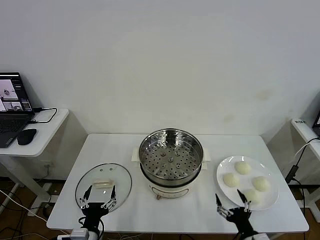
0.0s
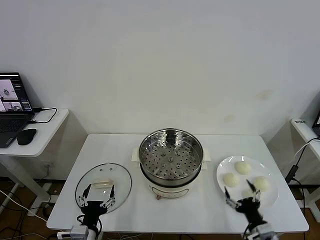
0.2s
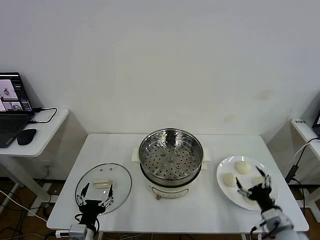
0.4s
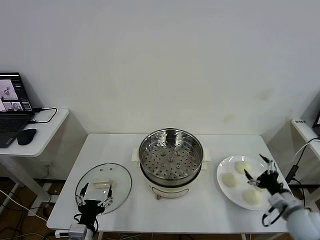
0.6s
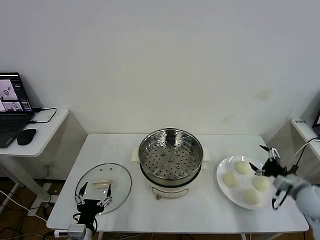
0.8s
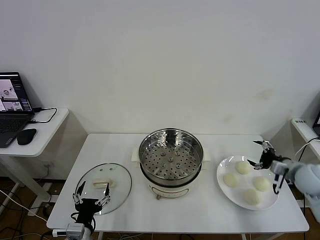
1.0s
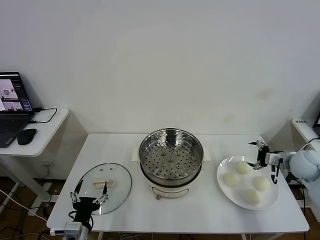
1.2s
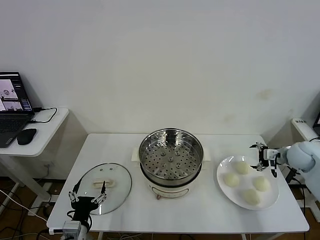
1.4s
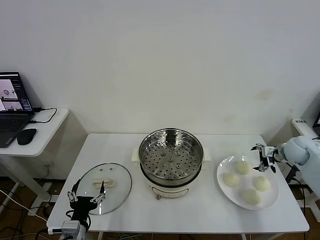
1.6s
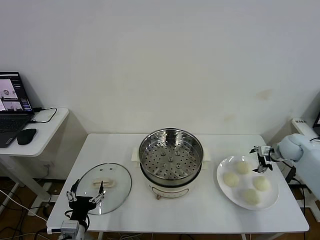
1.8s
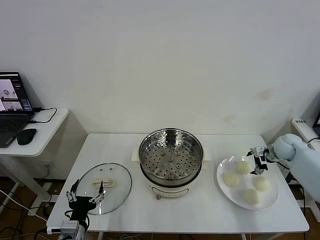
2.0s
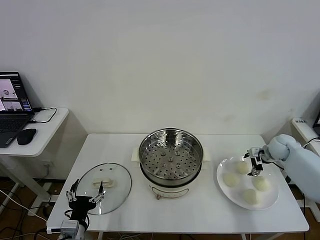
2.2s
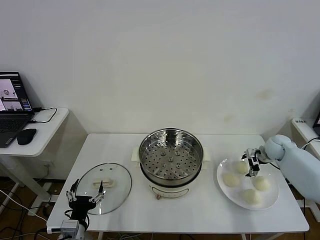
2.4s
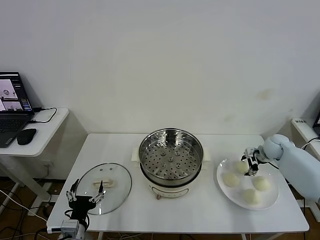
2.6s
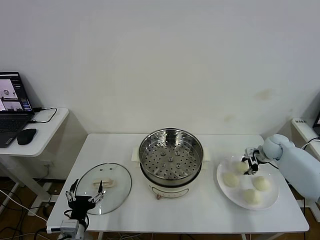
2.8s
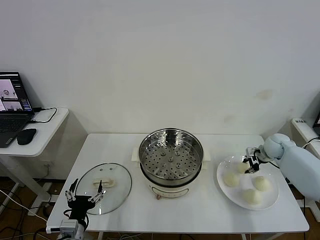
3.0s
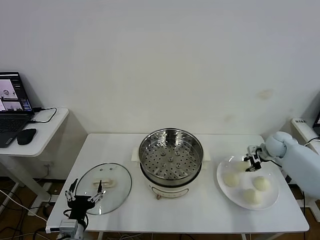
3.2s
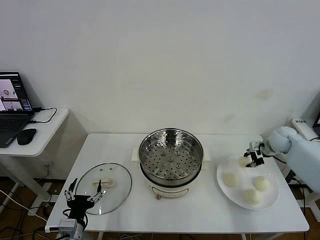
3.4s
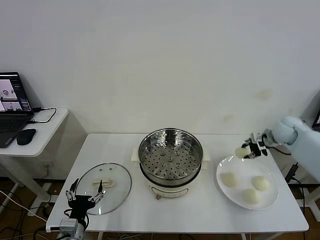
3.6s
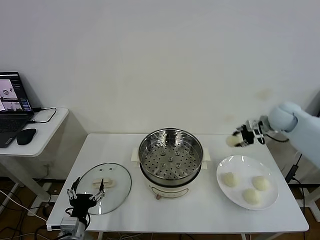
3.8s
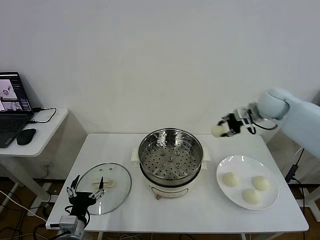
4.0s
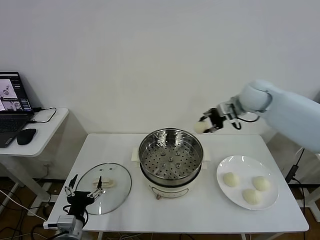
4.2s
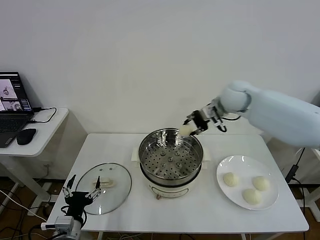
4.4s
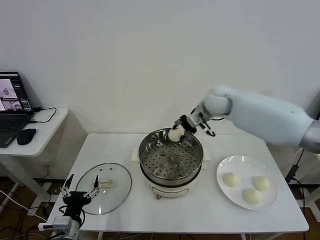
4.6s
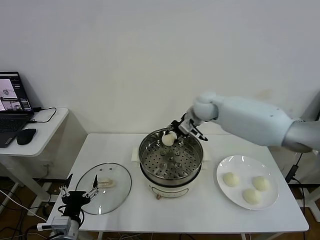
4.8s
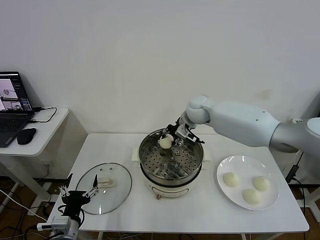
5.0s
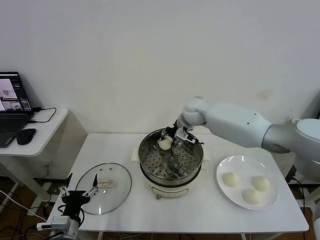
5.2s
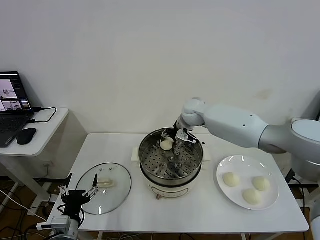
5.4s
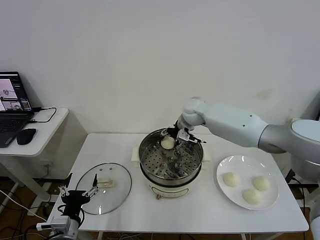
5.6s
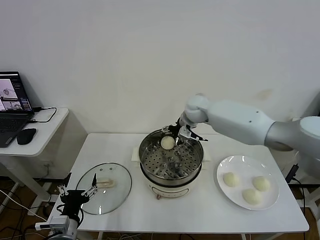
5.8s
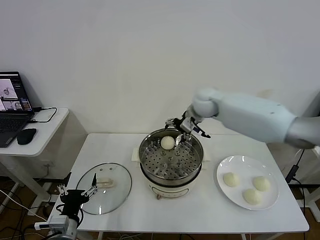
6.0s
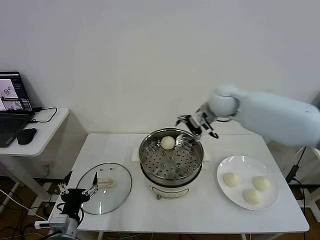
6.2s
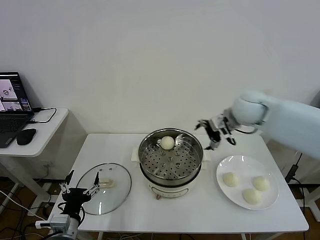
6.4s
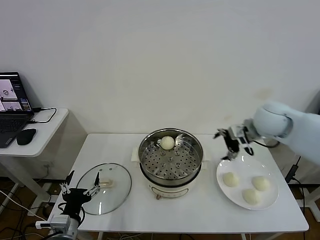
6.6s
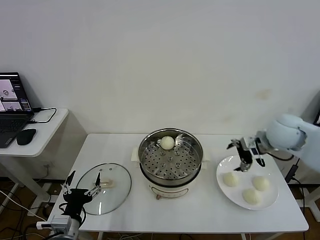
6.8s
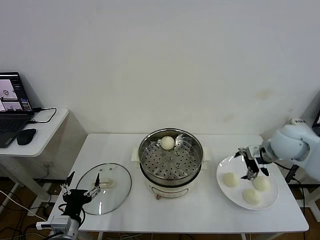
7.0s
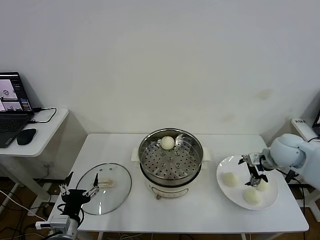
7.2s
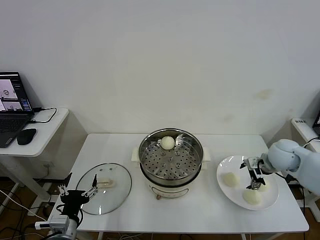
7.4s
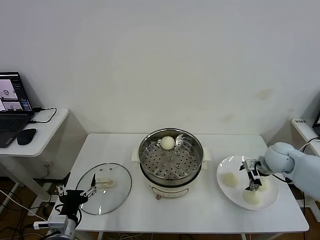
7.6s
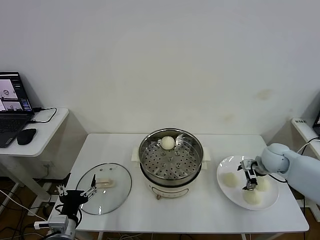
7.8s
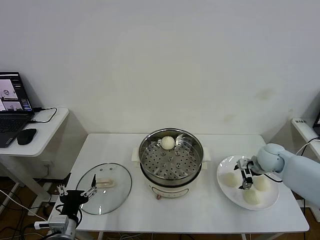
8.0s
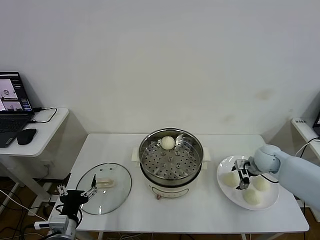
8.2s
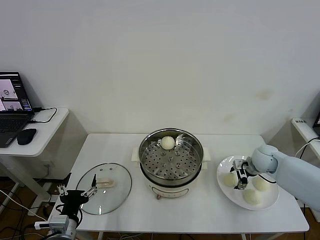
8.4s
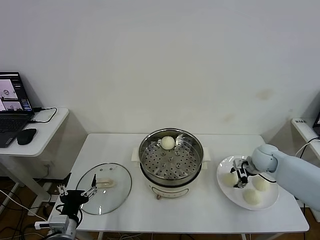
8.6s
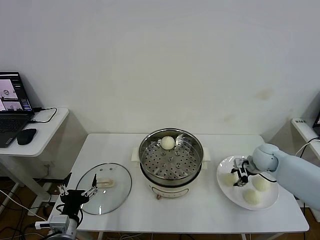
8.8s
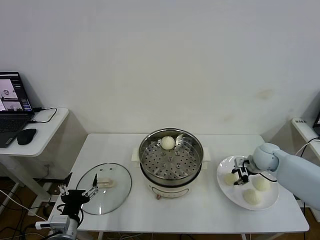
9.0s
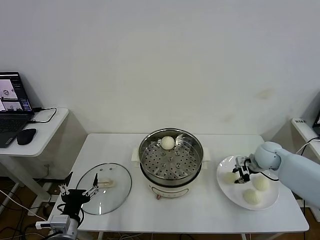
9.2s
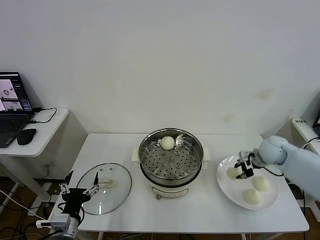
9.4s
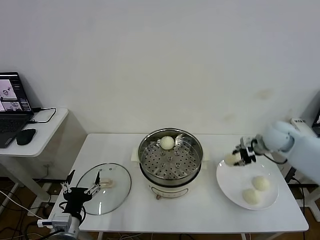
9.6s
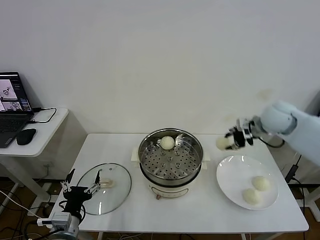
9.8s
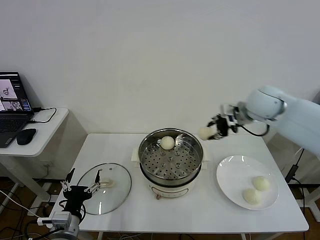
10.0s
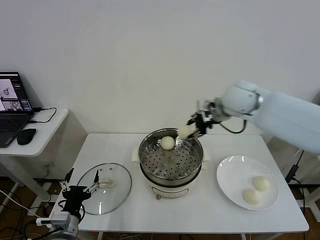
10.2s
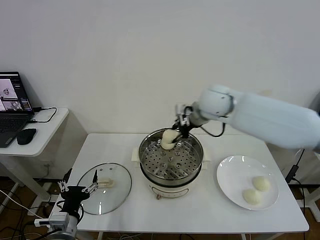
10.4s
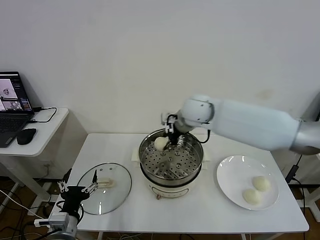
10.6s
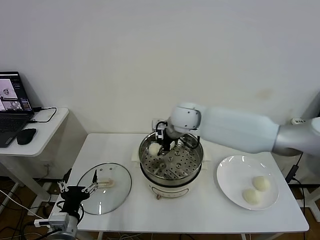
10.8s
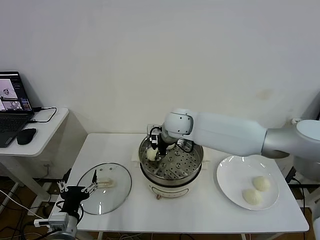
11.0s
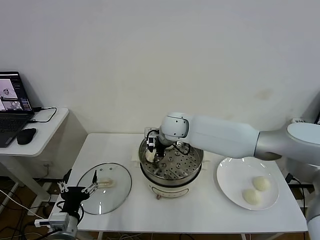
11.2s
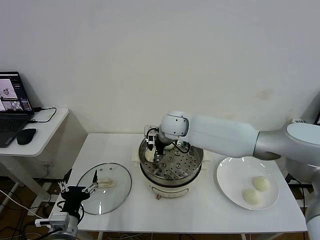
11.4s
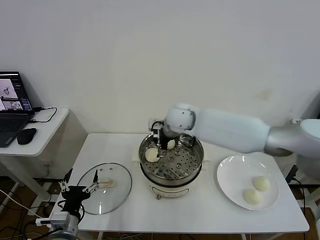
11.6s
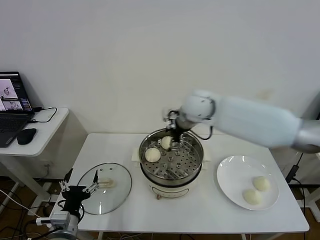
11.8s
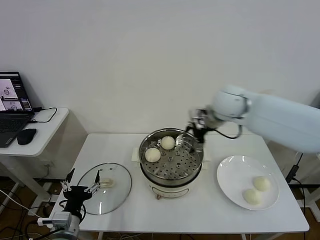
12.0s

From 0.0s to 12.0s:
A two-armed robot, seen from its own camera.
Step, from 0.0s to 2.8s: Grasp the baozi in the plate with right gripper.
Step, from 3.0s to 5.6s: Place the baozi on the steamer with right gripper.
Step, from 5.8s to 8.8s: Grasp the baozi in the plate with right gripper.
Step, from 9.0s to 11.4s: Place the baozi on the steamer with right gripper.
From 1.6s to 3.0s: The right gripper changes place by roughly 5 cm, and closes.
From 3.0s to 4.4s: The right gripper heads to the left and upward, covering approximately 30 cm.
From 4.4s to 6.0s: The right gripper moves roughly 10 cm downward and comes back, and opens up.
From 6.0s to 7.6s: The right gripper heads to the right, downward and backward, covering about 30 cm.
From 7.6s to 9.0s: The right gripper closes its fingers.
From 9.0s to 10.4s: The right gripper goes approximately 35 cm to the left and upward.
From 10.4s to 12.0s: The right gripper goes about 10 cm to the right, and opens up.

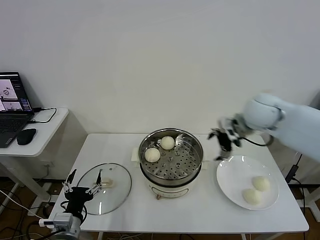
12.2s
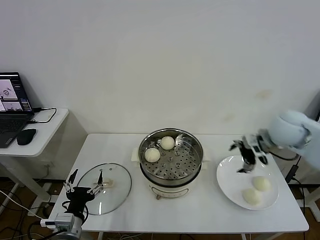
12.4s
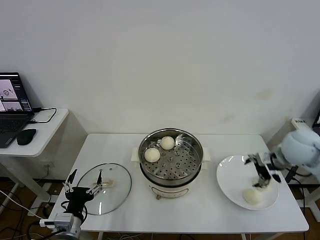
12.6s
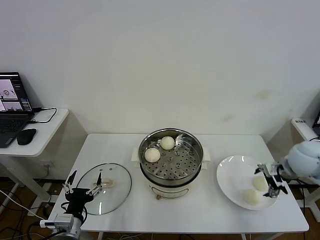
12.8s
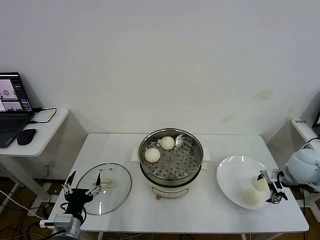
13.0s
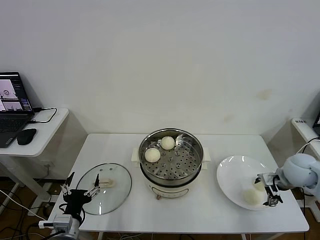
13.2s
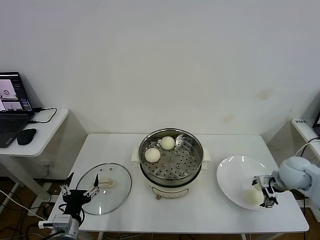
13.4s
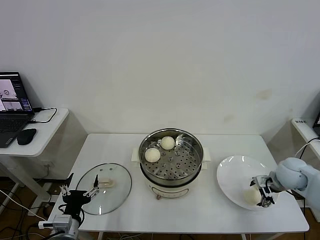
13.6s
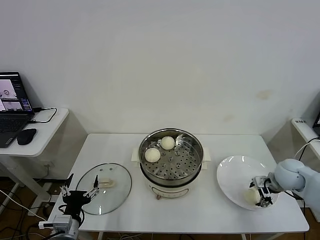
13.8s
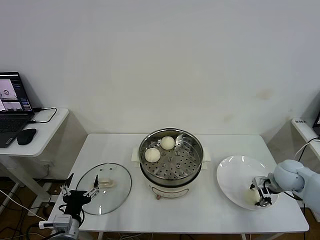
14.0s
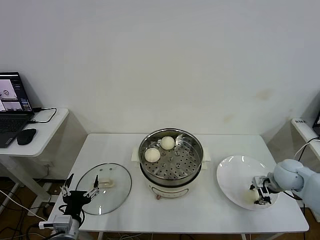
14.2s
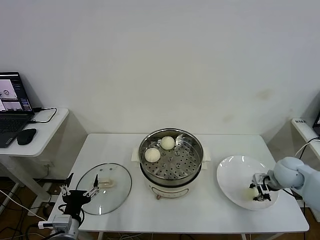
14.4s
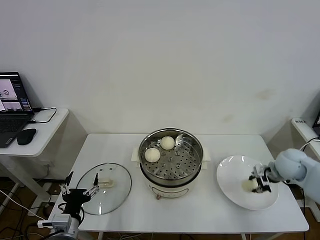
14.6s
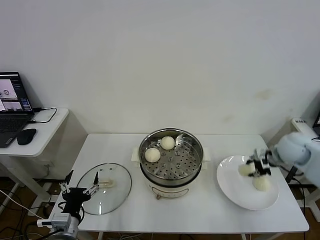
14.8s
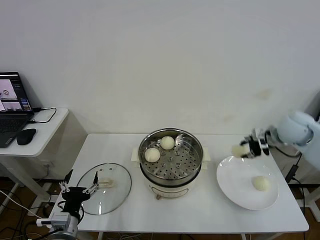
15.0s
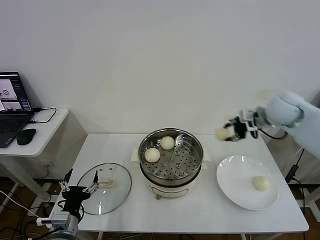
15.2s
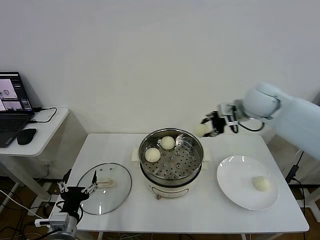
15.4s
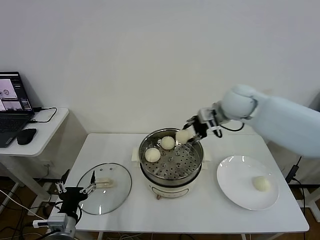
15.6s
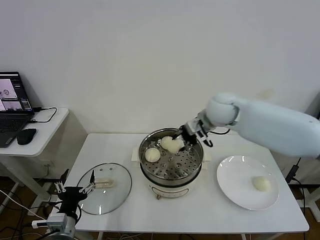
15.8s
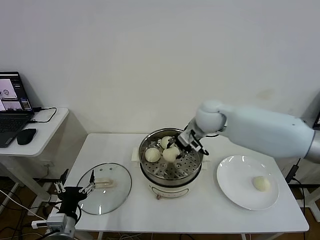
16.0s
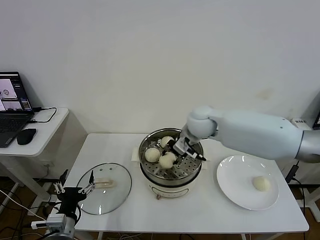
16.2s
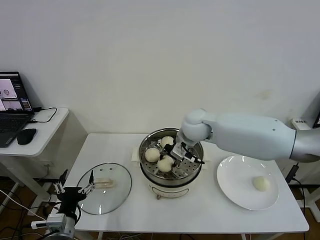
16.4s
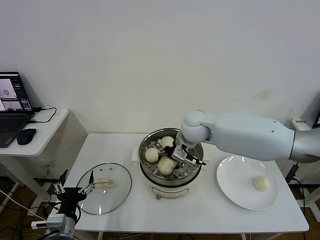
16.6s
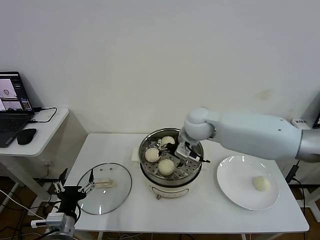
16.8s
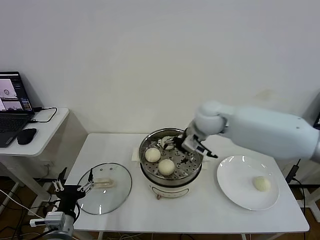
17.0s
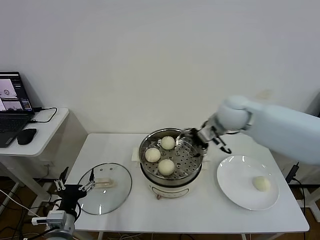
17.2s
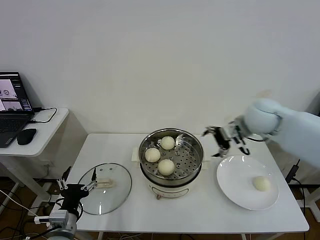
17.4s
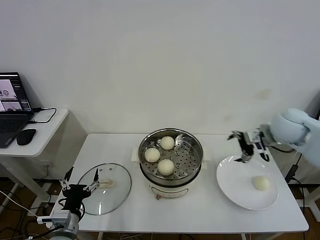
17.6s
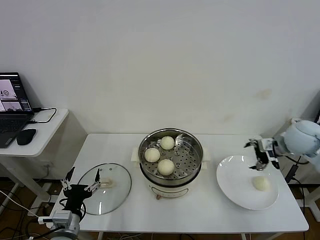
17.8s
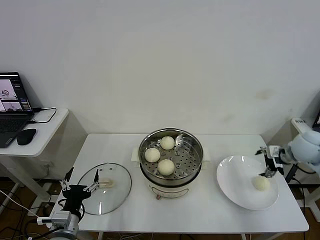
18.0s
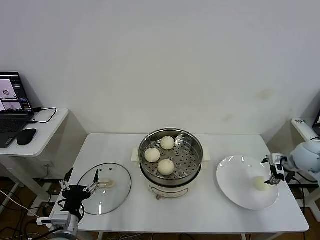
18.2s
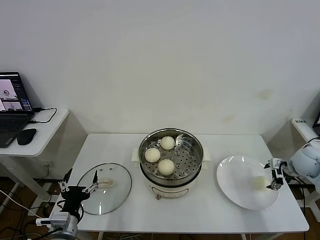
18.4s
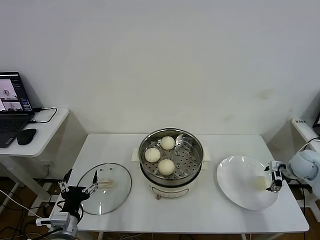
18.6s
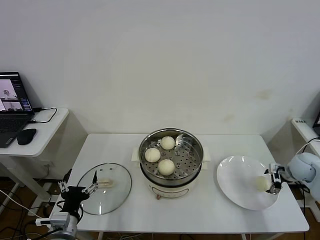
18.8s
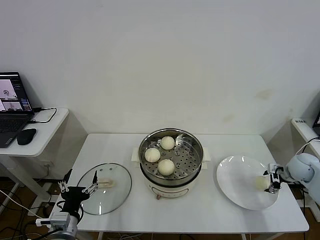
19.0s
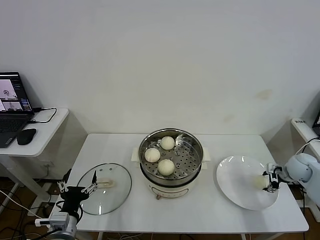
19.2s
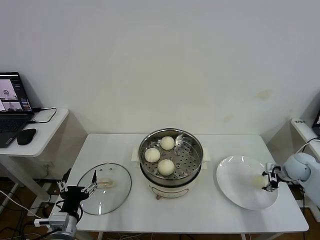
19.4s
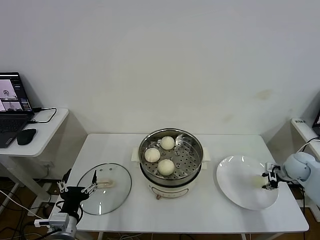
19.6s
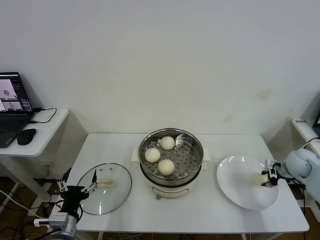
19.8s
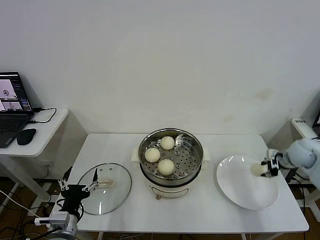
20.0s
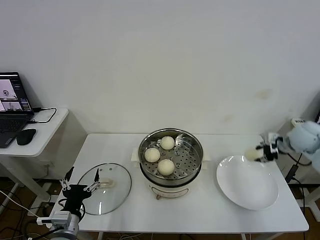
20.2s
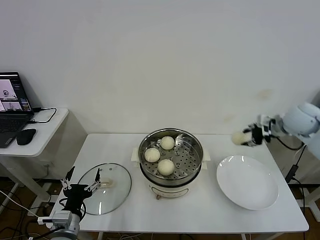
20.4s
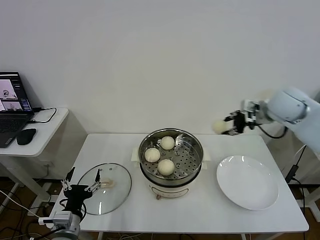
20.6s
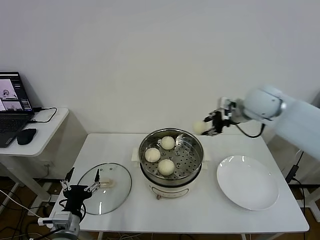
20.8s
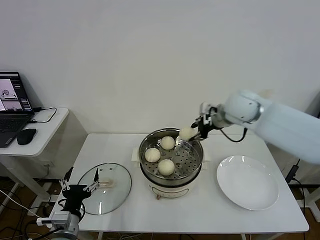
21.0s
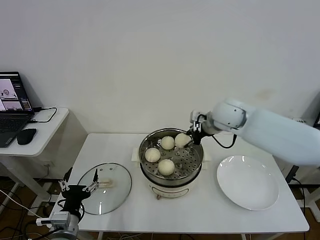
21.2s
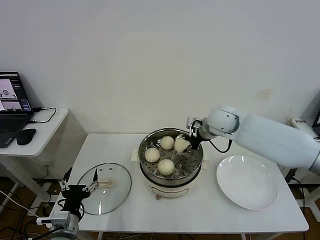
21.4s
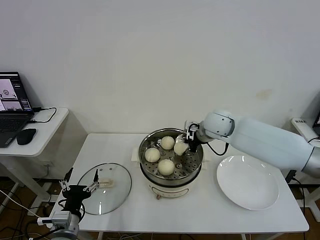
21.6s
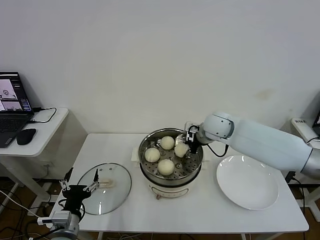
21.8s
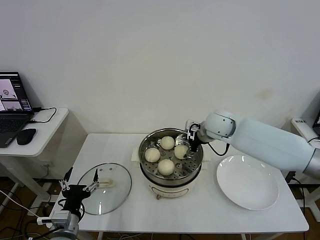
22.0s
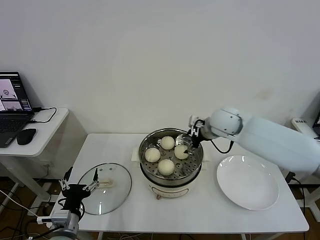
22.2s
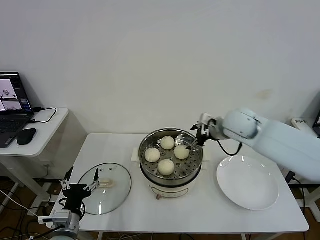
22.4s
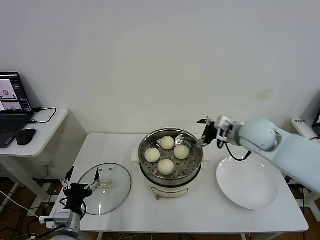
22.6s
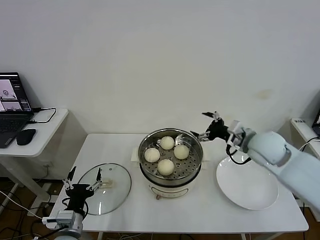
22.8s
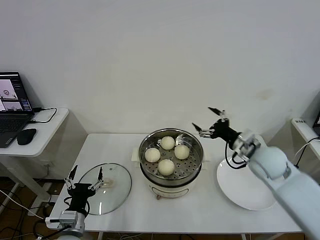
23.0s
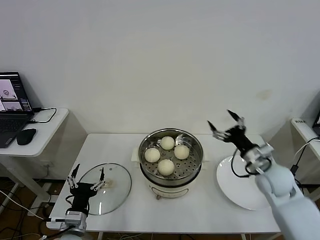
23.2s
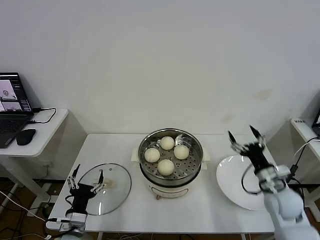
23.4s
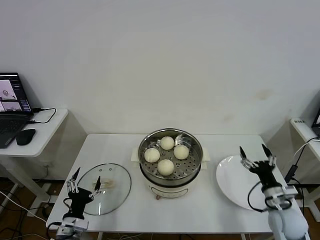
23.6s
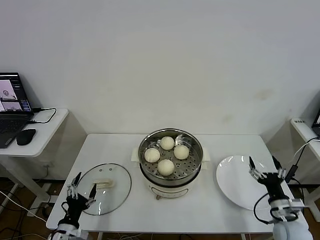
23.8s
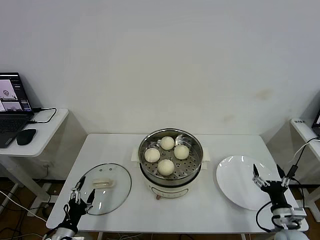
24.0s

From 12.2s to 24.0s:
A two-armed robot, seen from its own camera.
Step, from 12.2s to 14.2s: Grasp the baozi in the plate with right gripper.
Step, from 14.4s to 16.6s: Place the baozi on the steamer with right gripper.
Step, from 17.0s to 19.4s: Grasp the baozi in the plate with right gripper.
Step, from 19.8s to 22.0s: Place the baozi on the steamer with right gripper.
From 12.2s to 13.6s: The right gripper shifts about 20 cm downward and to the right.
From 13.6s to 15.2s: The right gripper goes some 25 cm upward, forward and to the left, and closes.
From 15.2s to 16.6s: The right gripper goes roughly 25 cm to the left, and opens its fingers.
From 16.6s to 18.2s: The right gripper moves to the right, some 40 cm.
From 18.2s to 19.6s: The right gripper heads downward, covering approximately 5 cm, and closes its fingers.
From 19.6s to 21.0s: The right gripper heads to the left and upward, covering some 35 cm.
From 21.0s to 22.6s: The right gripper moves backward and downward, approximately 10 cm, and opens.
From 22.6s to 24.0s: The right gripper shifts approximately 35 cm downward, backward and to the right, while the left gripper moves downward and to the left, roughly 10 cm.
